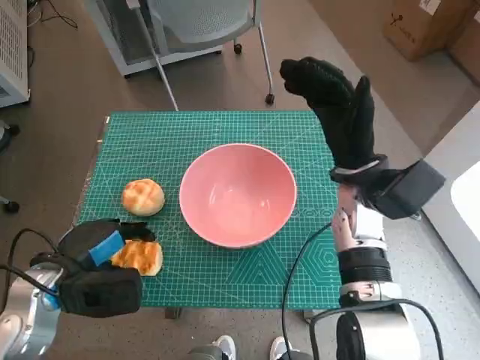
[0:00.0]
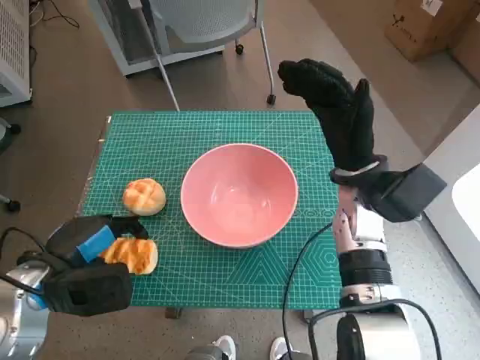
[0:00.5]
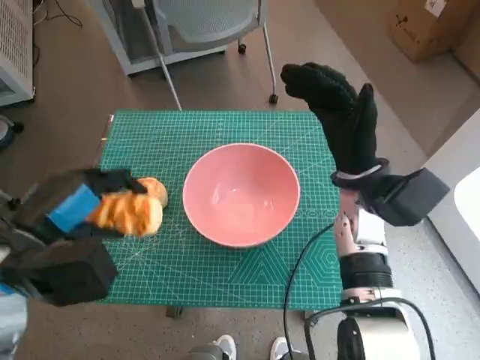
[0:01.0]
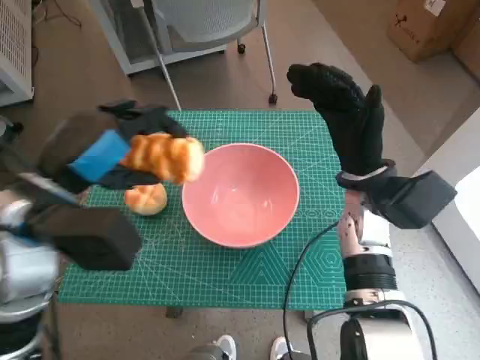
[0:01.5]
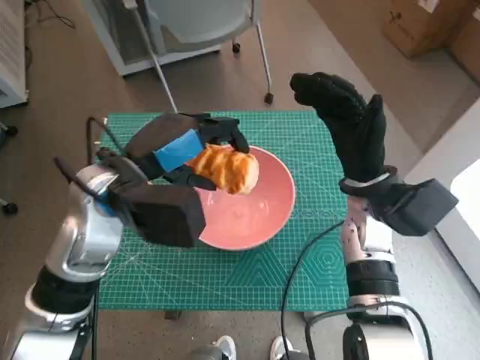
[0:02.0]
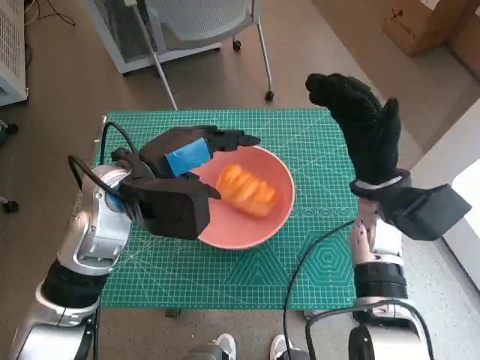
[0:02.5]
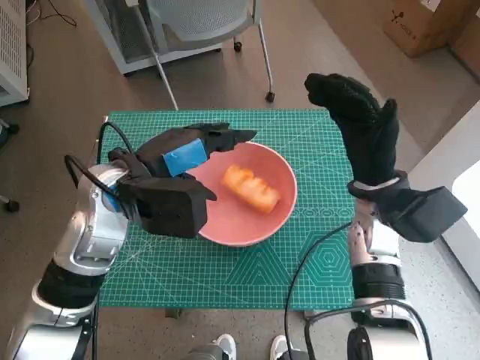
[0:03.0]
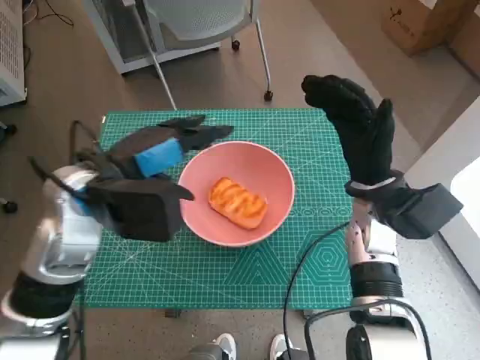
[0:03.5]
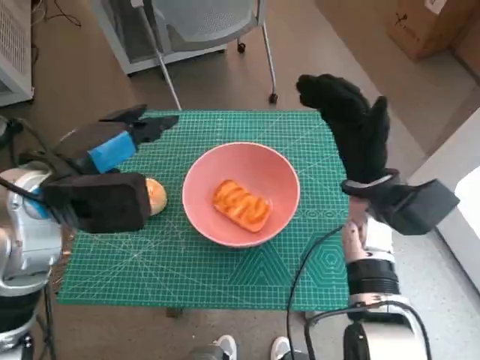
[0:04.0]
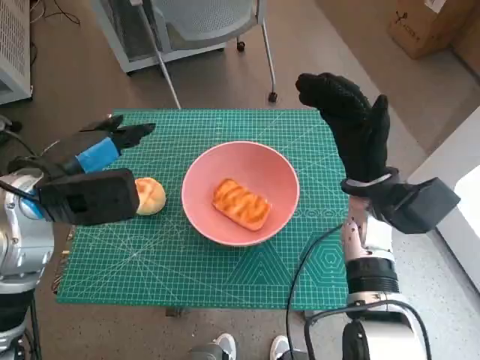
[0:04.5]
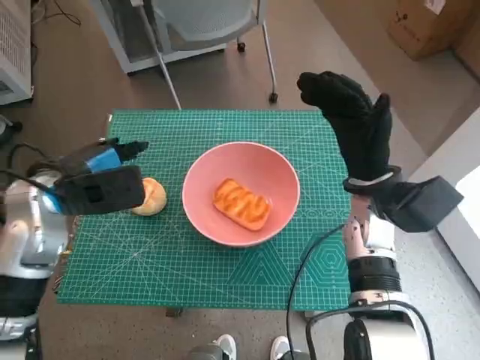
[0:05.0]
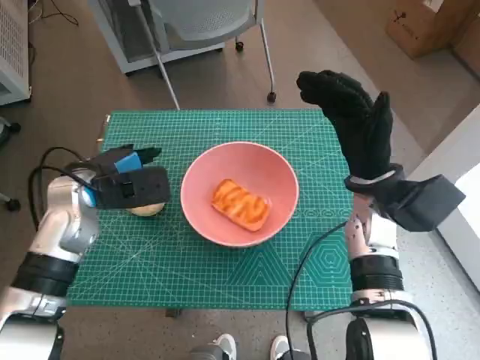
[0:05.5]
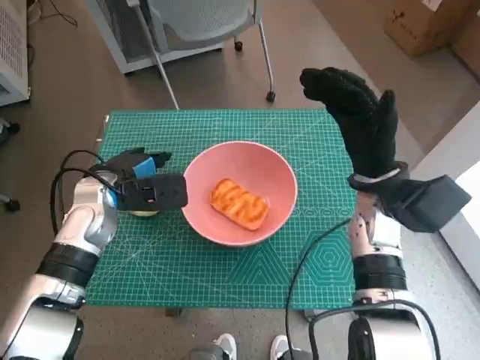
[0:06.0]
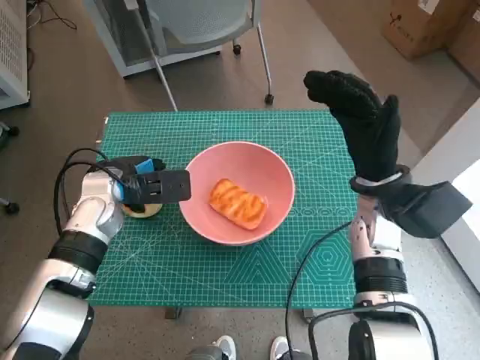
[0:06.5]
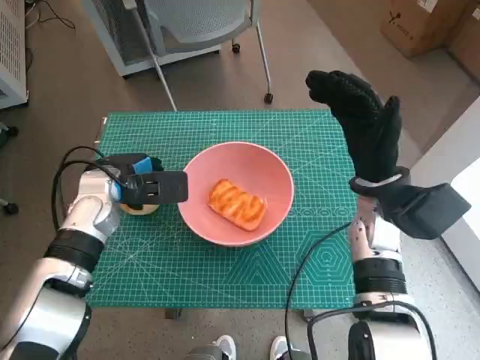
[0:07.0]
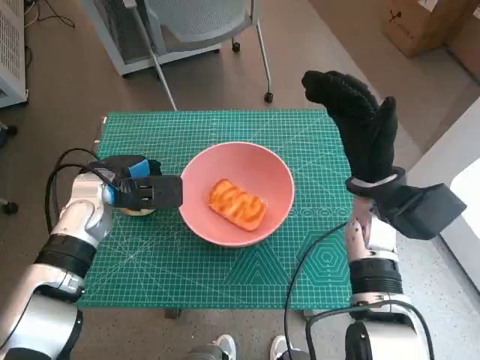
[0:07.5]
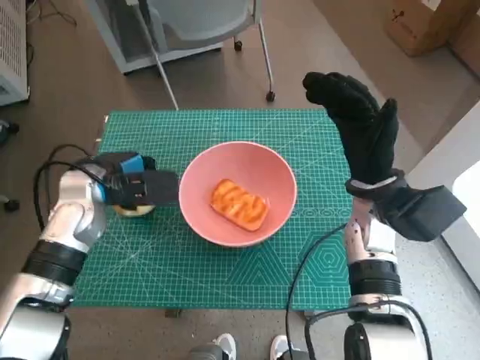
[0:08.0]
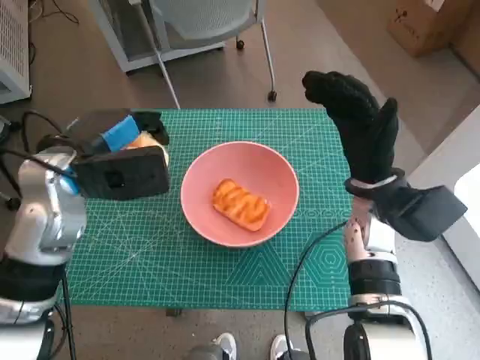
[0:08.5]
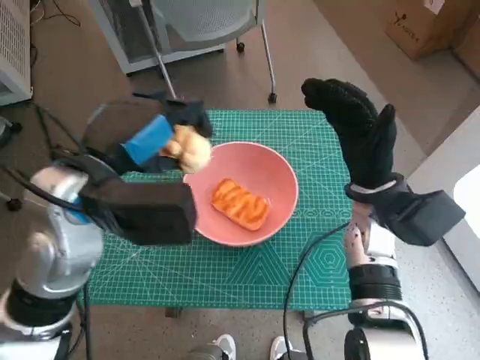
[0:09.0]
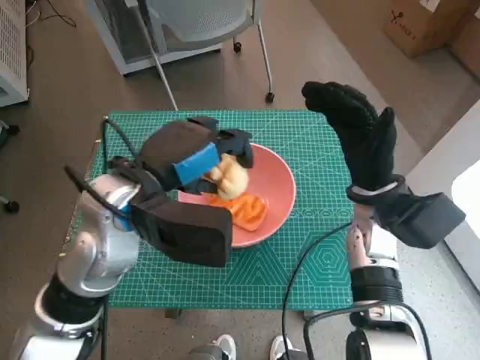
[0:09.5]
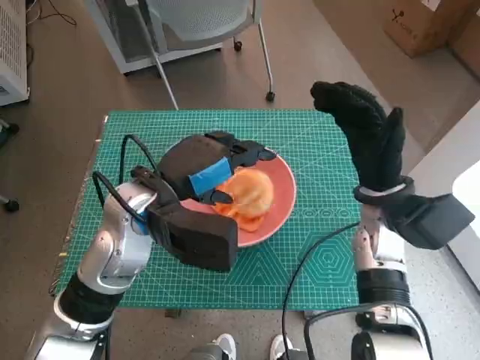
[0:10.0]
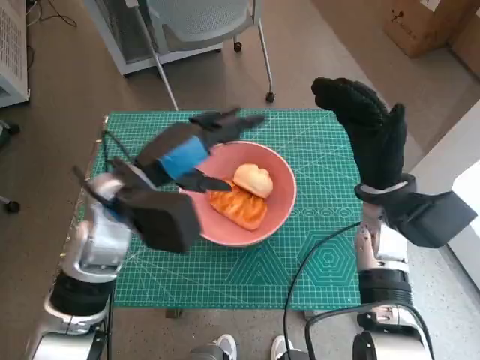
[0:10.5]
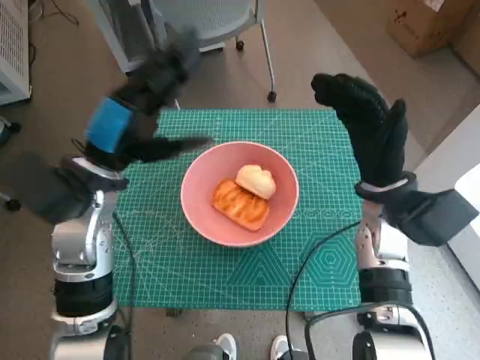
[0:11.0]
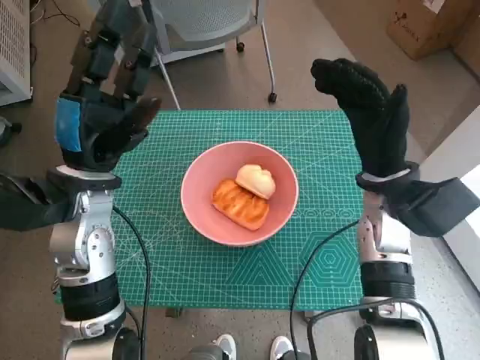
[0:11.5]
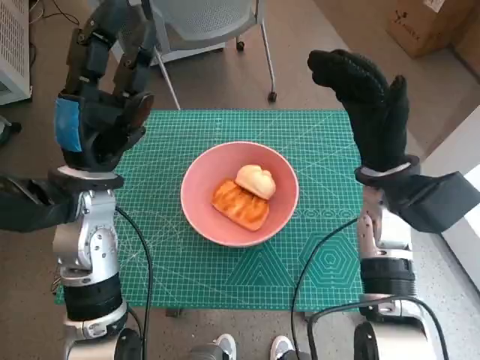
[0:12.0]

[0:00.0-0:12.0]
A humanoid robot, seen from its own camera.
Step, 0:00.0 to 0:02.5: Place the long bread in pink bowl with left hand.
Step, 0:03.0 to 0:06.5: Grasp the round bread with left hand.
Step, 0:07.0 to 0:10.0: Place the round bread in pink bowl with left hand.
0:00.0 to 0:02.0: The left hand travels upward, to the right and forward by roughly 15 cm.
0:02.0 to 0:04.0: The left hand moves to the left, some 5 cm.
0:04.0 to 0:06.0: The left hand travels downward and forward by some 15 cm.
0:06.0 to 0:08.0: The hands stay close to where they were, moving slightly.
0:08.0 to 0:10.0: The left hand heads to the right, upward and backward, covering about 15 cm.
0:10.0 to 0:12.0: The left hand shifts roughly 5 cm to the left.

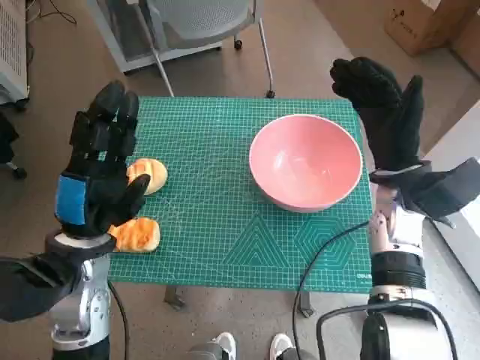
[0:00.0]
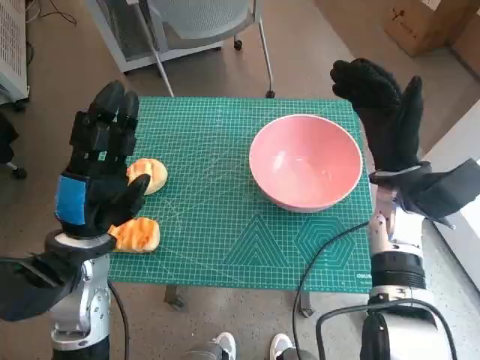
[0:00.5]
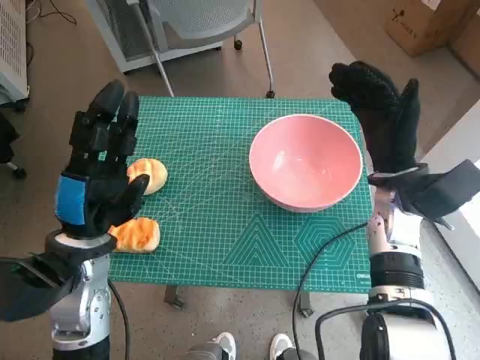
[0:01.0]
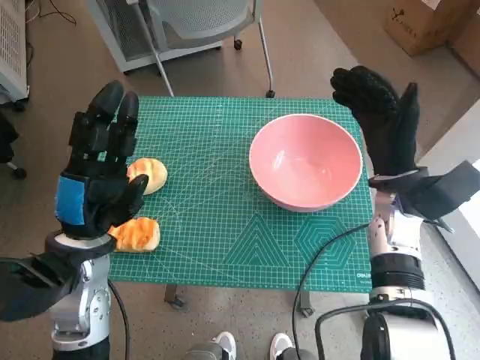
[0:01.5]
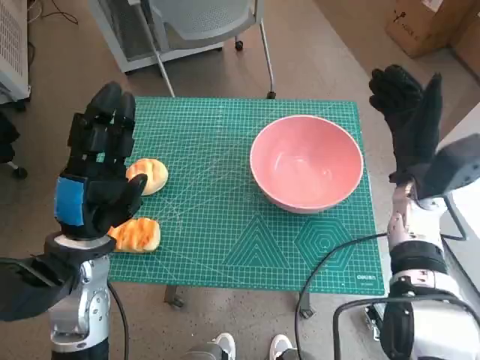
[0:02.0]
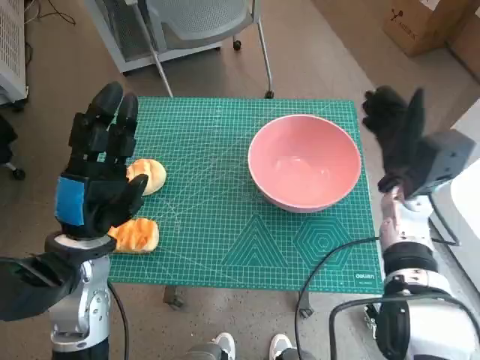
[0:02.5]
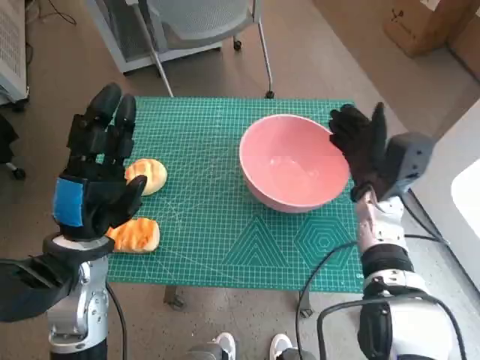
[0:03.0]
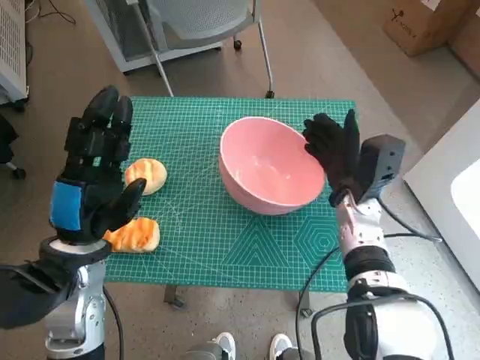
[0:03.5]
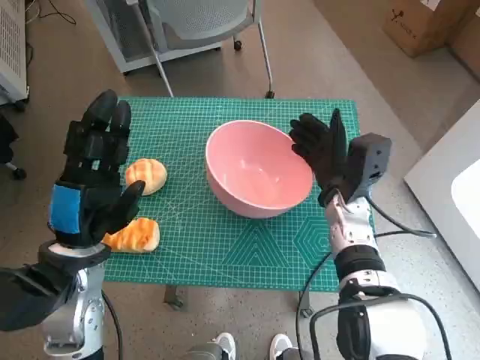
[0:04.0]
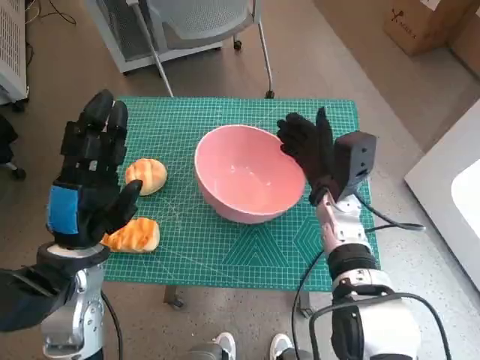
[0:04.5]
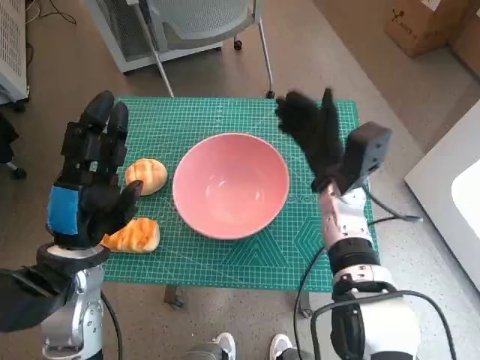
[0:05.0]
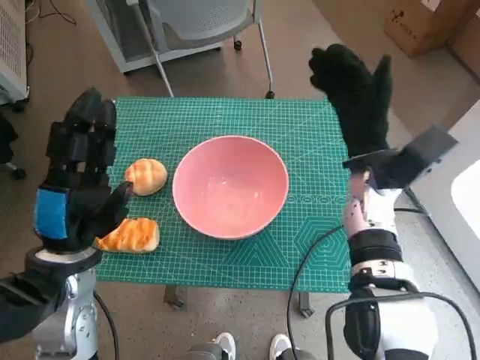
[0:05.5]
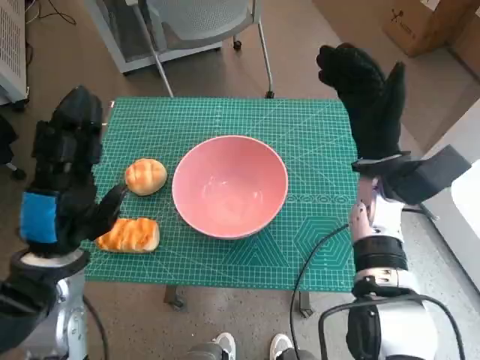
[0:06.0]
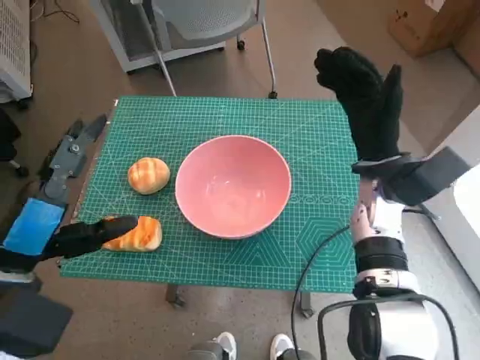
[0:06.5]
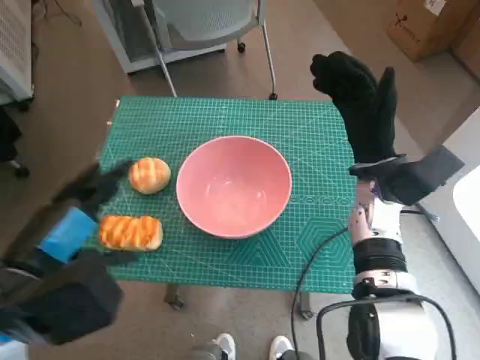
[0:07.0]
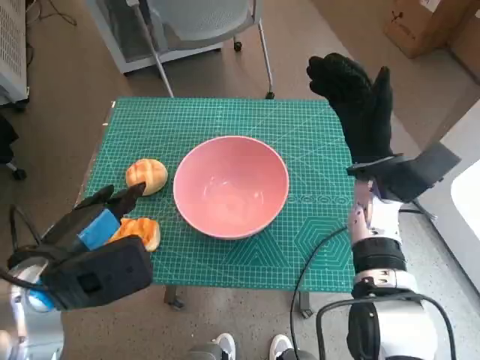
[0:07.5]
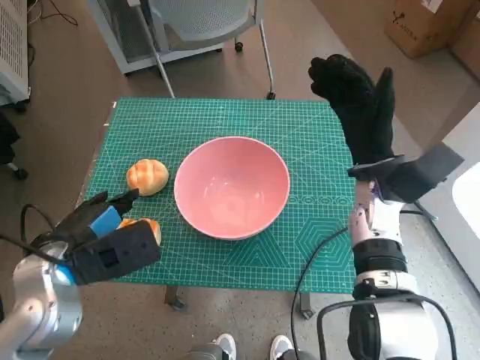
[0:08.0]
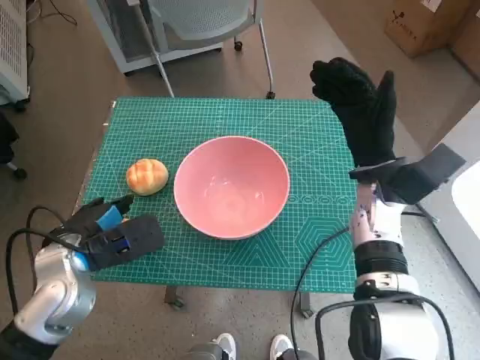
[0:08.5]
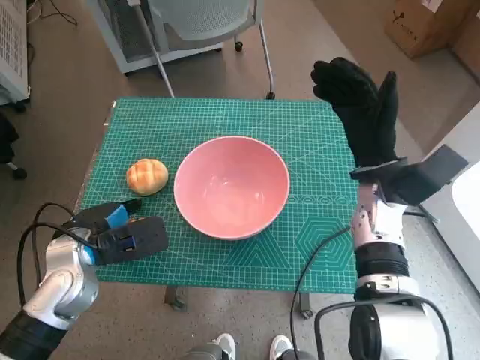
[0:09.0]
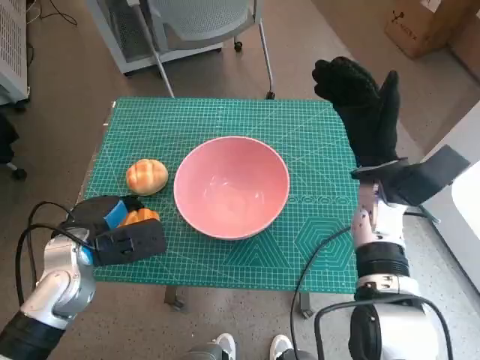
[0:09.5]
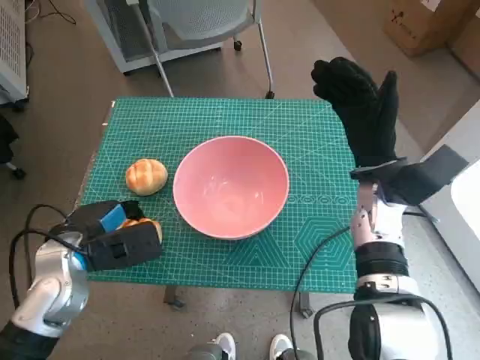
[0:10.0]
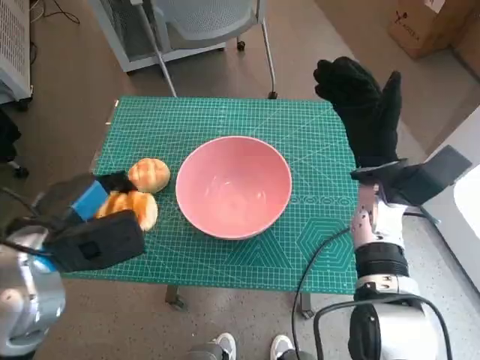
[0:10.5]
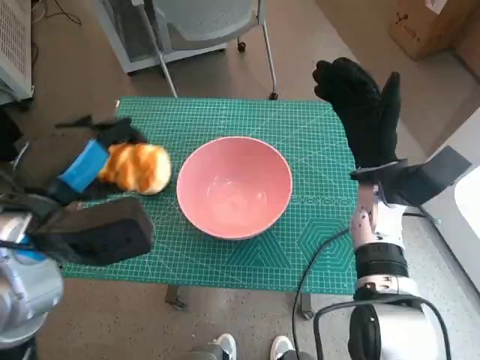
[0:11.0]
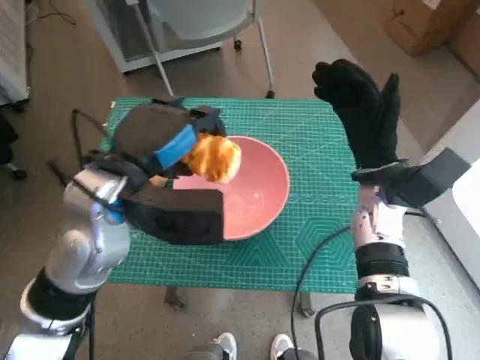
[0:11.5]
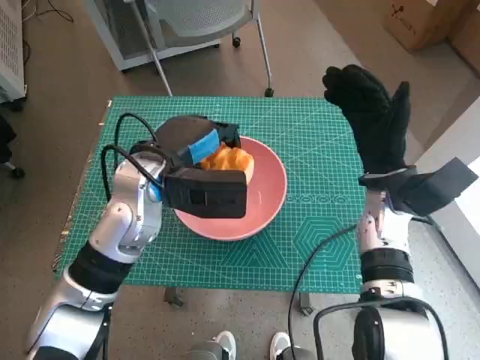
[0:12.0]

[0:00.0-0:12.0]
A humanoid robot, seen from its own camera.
Step, 0:00.0 to 0:04.5: Move the pink bowl to the center of table with right hand.
Step, 0:05.0 to 0:09.5: Grasp the long bread with left hand.
0:02.0 to 0:04.0: The right hand moves to the left, approximately 10 cm.
0:04.0 to 0:06.0: The right hand heads upward, covering about 5 cm.
0:08.0 to 0:10.0: The left hand changes place by roughly 5 cm.
0:10.0 to 0:12.0: The left hand travels to the right, upward and forward by about 15 cm.

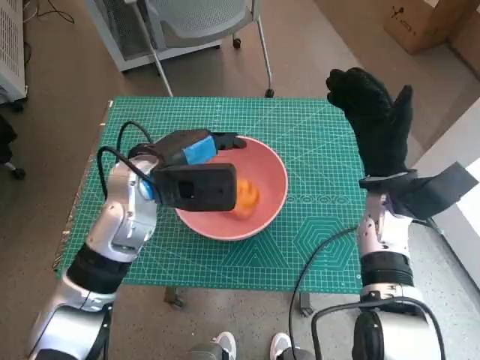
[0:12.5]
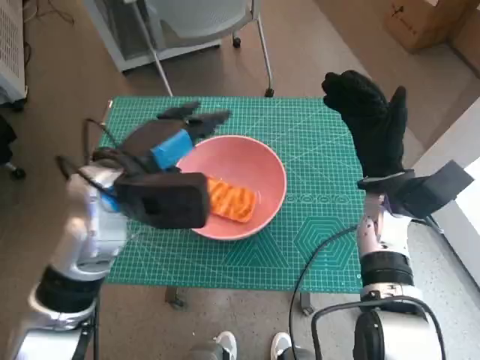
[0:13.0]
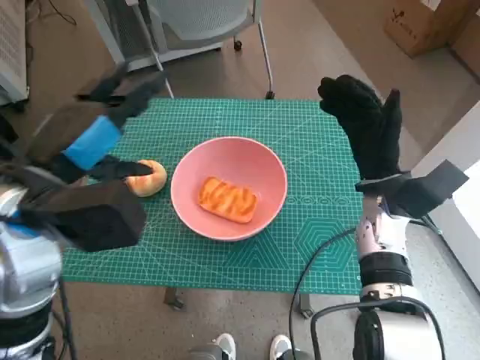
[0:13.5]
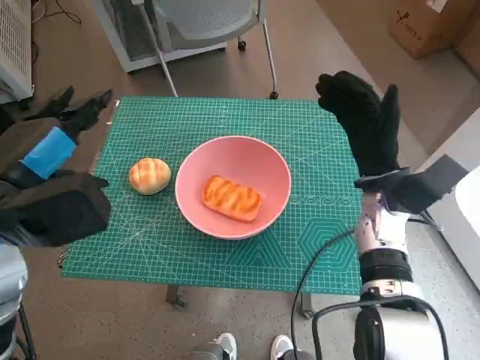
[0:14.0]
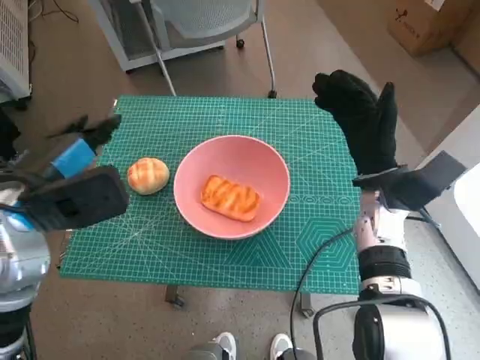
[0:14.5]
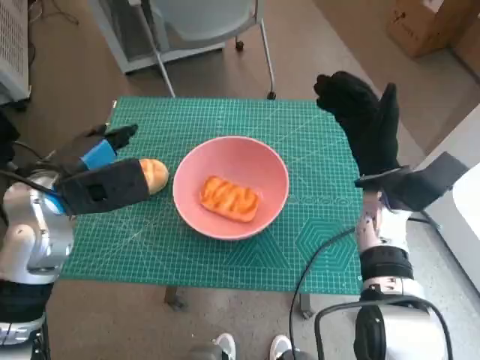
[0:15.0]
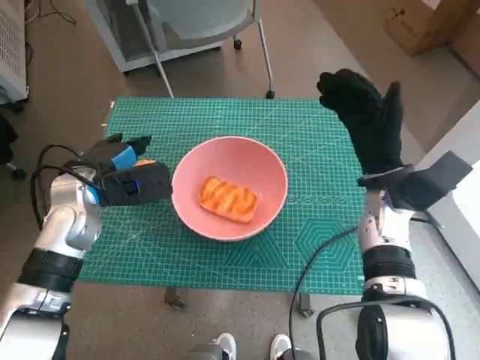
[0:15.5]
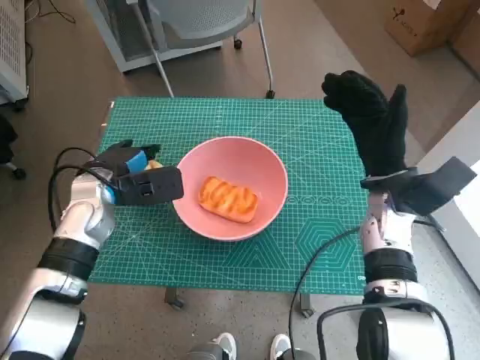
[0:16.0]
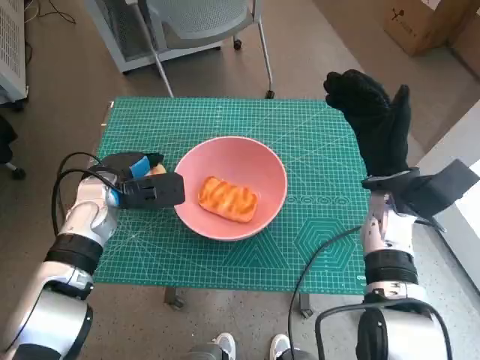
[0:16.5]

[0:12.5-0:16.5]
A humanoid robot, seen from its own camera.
0:12.5 to 0:14.5: The left hand is displaced to the left and backward by some 15 cm.
0:14.5 to 0:16.5: The left hand shifts approximately 15 cm downward and forward.
